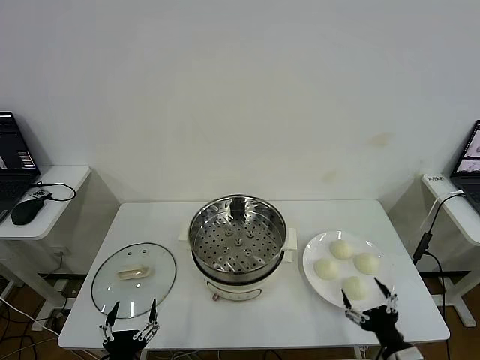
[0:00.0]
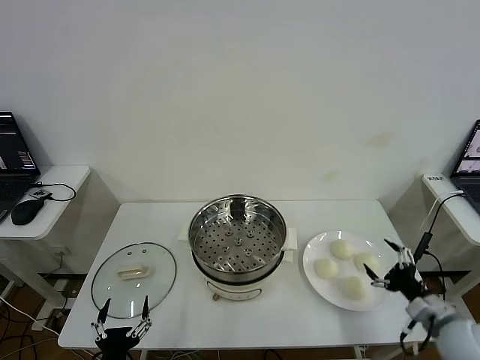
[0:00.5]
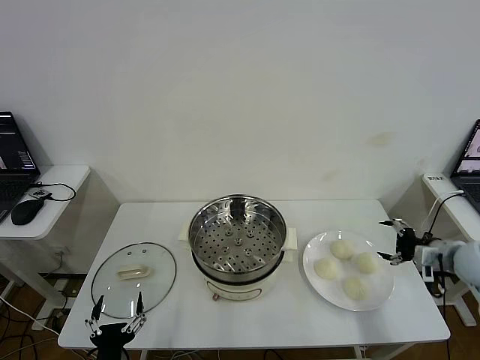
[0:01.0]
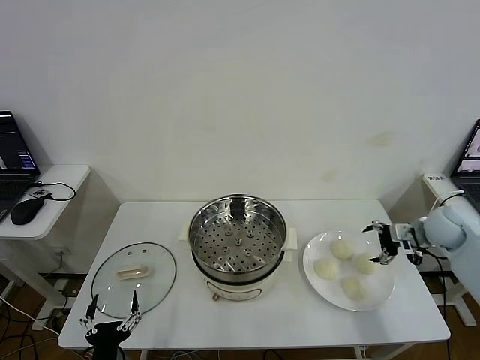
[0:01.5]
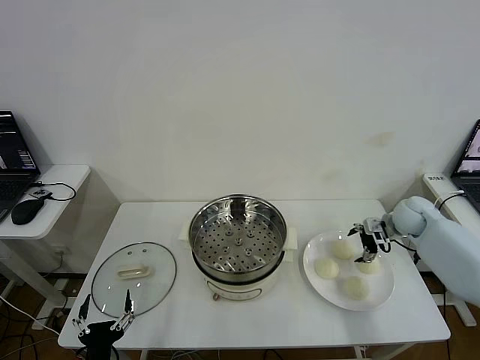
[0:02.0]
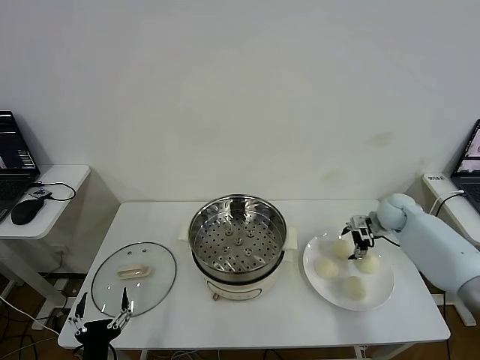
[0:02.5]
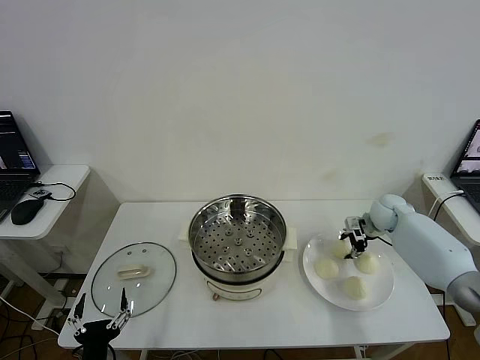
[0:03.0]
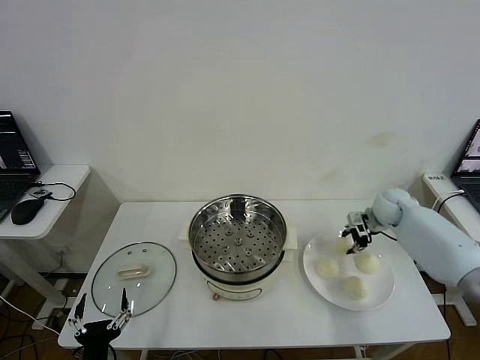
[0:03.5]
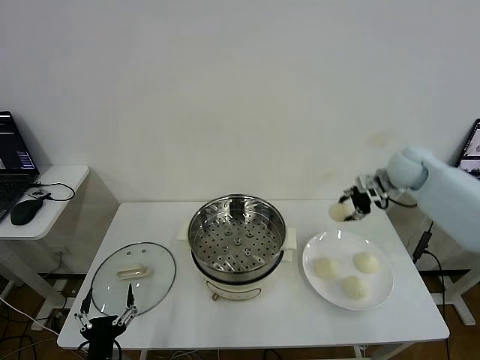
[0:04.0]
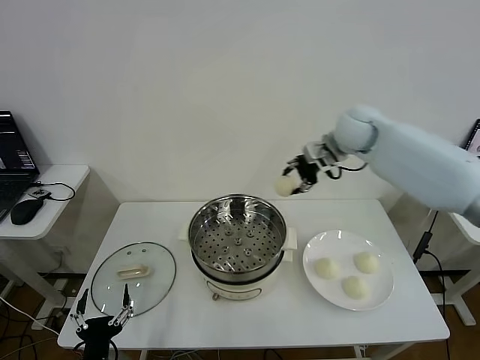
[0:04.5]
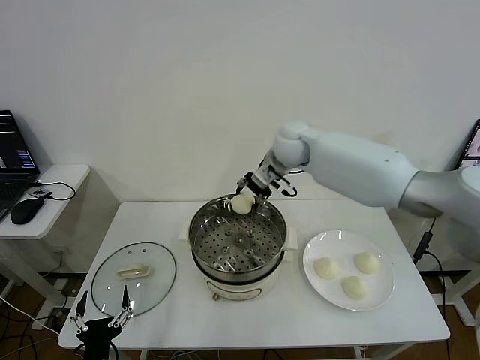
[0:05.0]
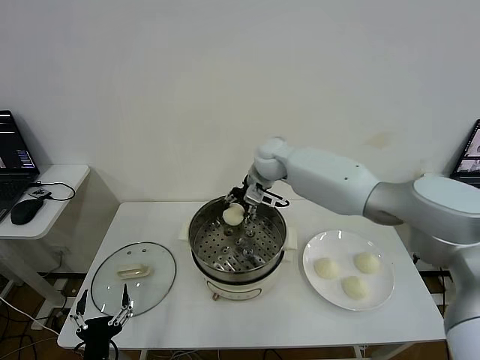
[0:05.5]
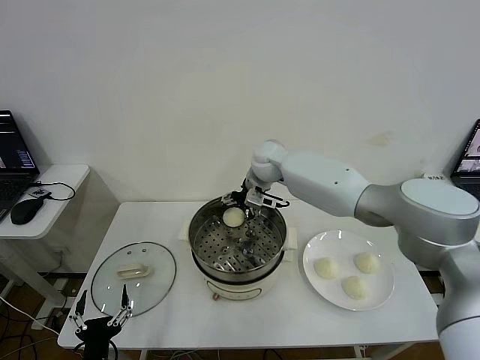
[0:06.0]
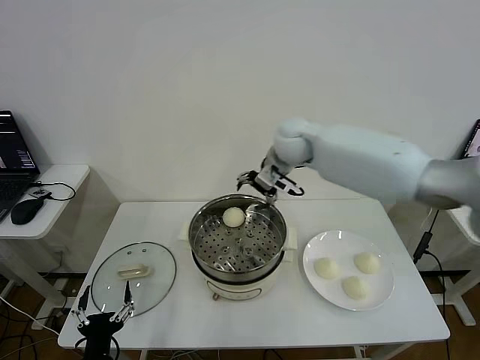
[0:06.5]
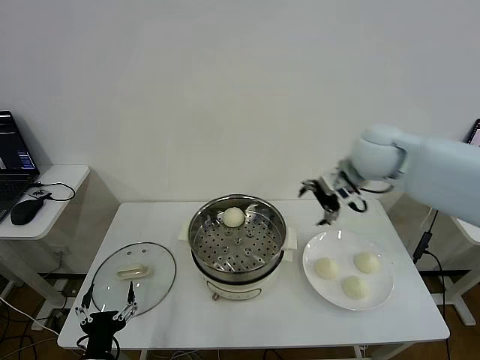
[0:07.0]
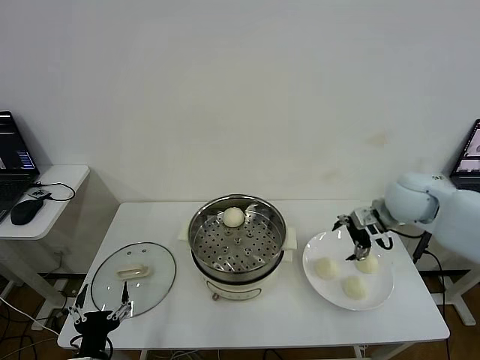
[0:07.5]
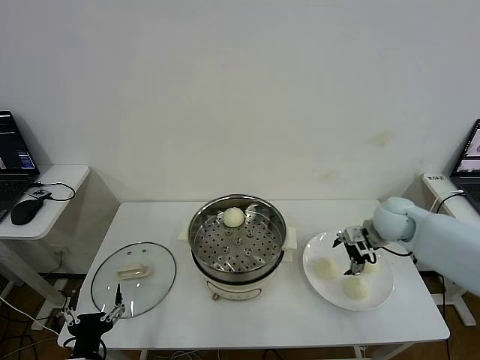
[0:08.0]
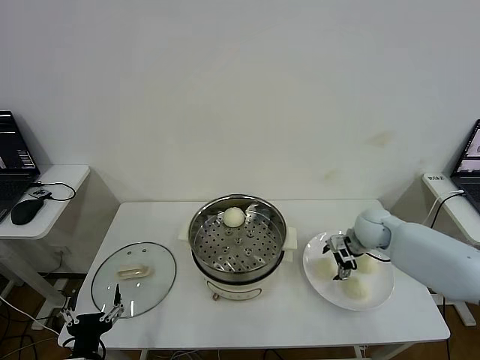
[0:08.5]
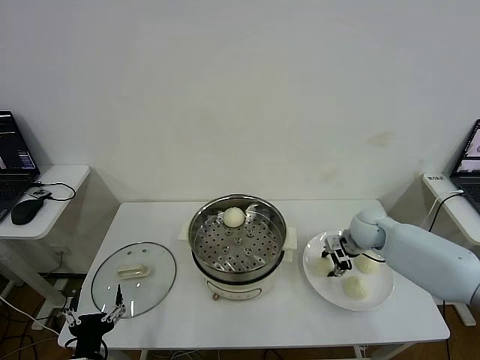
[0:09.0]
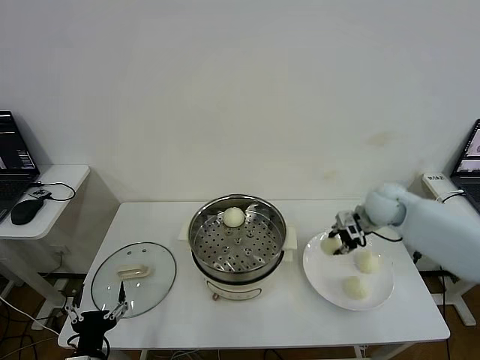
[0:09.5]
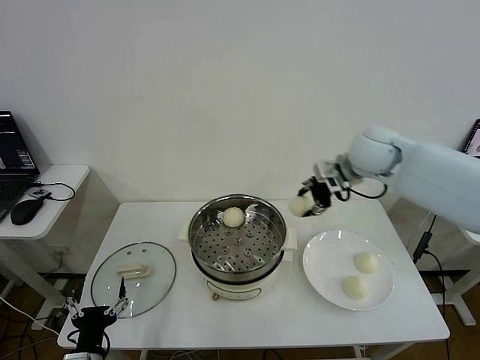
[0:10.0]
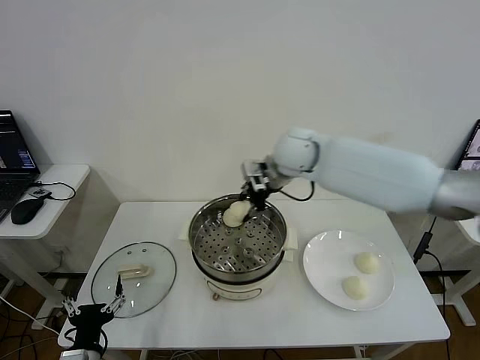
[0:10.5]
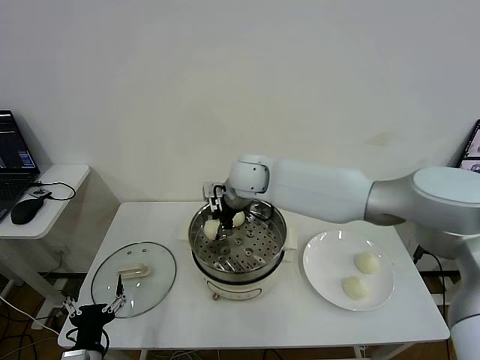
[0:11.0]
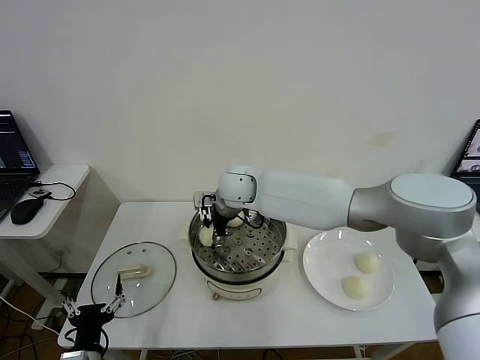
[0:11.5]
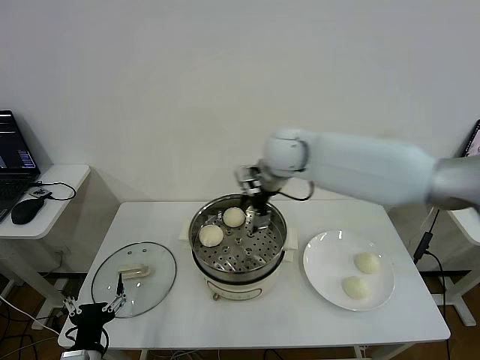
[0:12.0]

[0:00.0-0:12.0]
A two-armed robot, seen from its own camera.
Step, 0:00.0 to 0:02.5: Grasp the baozi in the plate with right gripper.
Step, 0:03.0 to 0:05.5: Place the baozi on the steamer with right gripper.
Step, 0:06.5 to 0:08.5: Grasp the baozi in the plate with right gripper.
Step, 0:09.0 to 0:11.5: Place the baozi on the steamer with right gripper.
0:02.0 to 0:04.0: The right gripper is displaced upward and to the left by approximately 20 cm, and closes up.
0:04.0 to 0:06.0: The right gripper shifts about 30 cm to the left, and opens its fingers.
0:06.0 to 0:08.0: The right gripper travels to the right and backward by some 30 cm.
0:08.0 to 0:10.0: The right gripper travels upward and to the left by about 25 cm, and closes up.
0:10.0 to 0:12.0: The right gripper travels to the left by about 10 cm, and opens up.

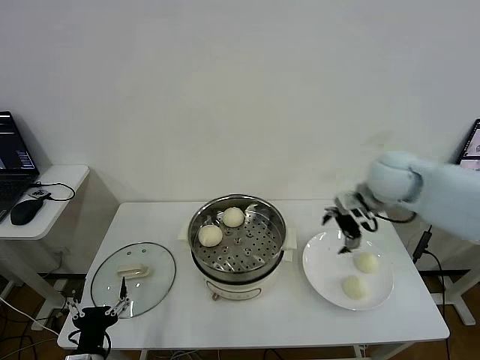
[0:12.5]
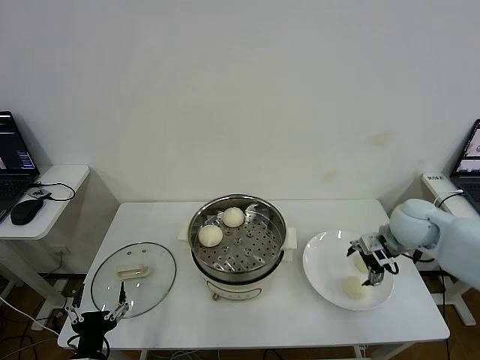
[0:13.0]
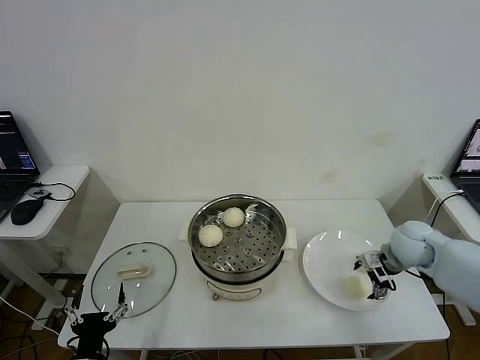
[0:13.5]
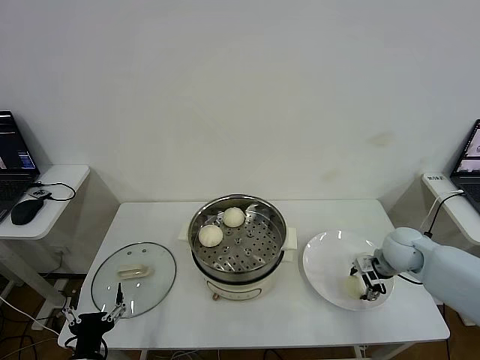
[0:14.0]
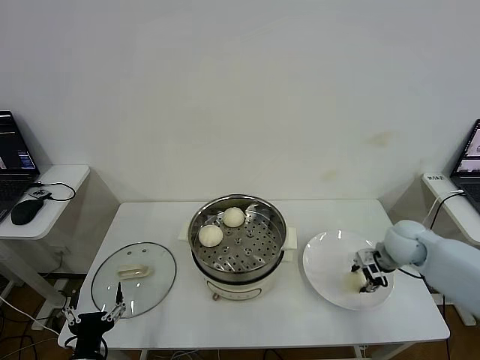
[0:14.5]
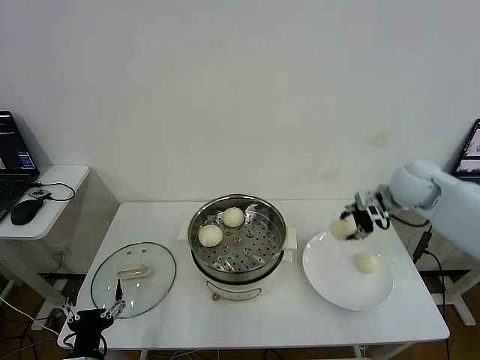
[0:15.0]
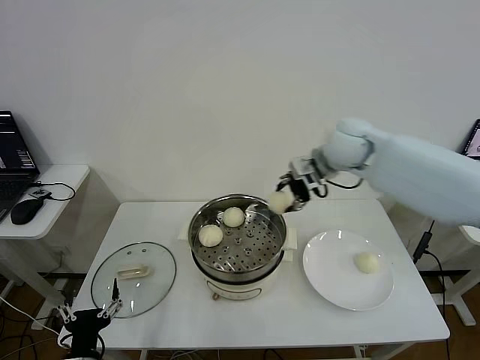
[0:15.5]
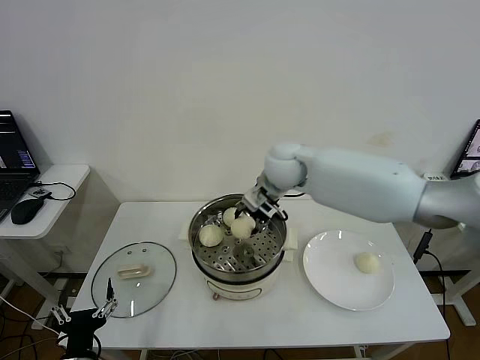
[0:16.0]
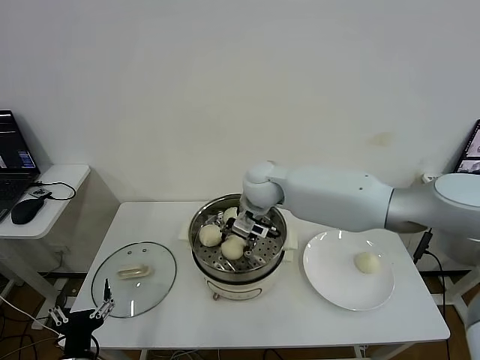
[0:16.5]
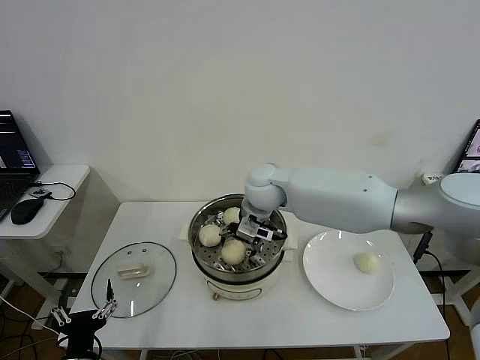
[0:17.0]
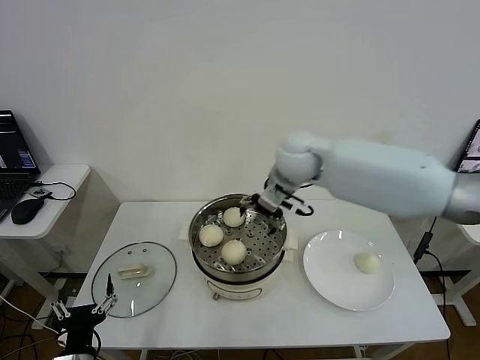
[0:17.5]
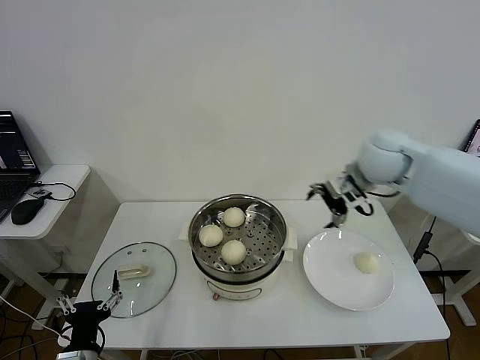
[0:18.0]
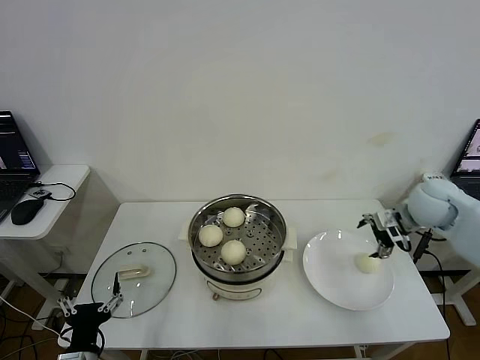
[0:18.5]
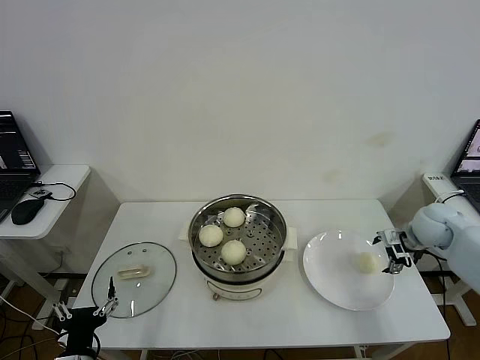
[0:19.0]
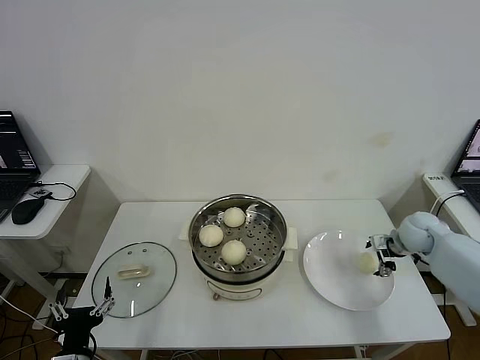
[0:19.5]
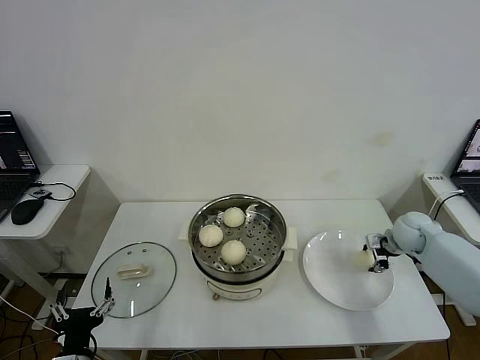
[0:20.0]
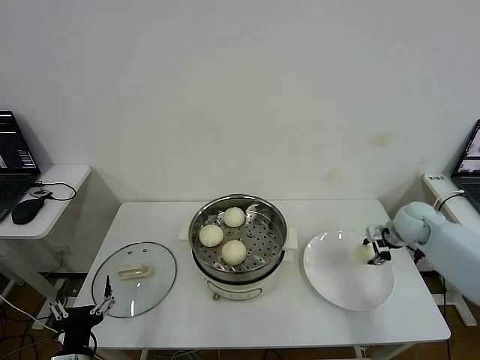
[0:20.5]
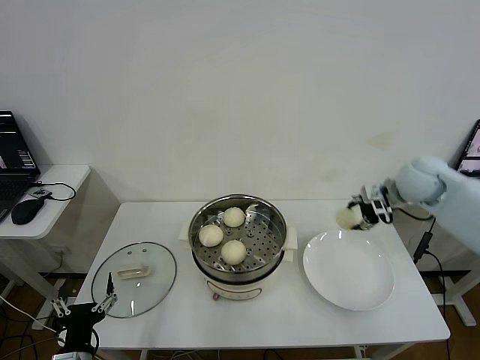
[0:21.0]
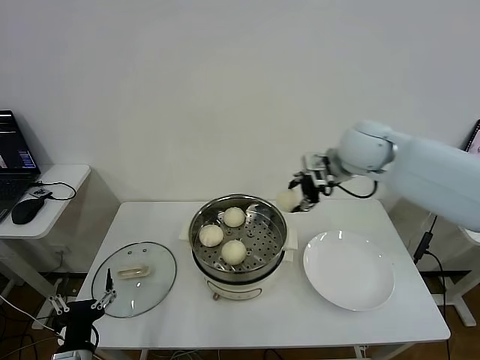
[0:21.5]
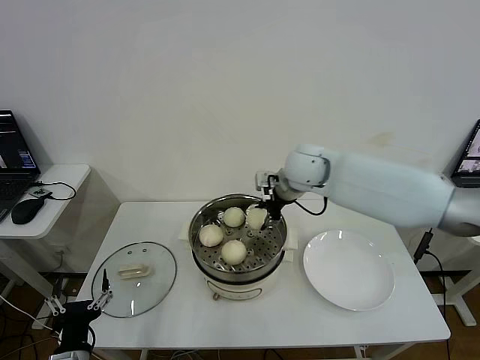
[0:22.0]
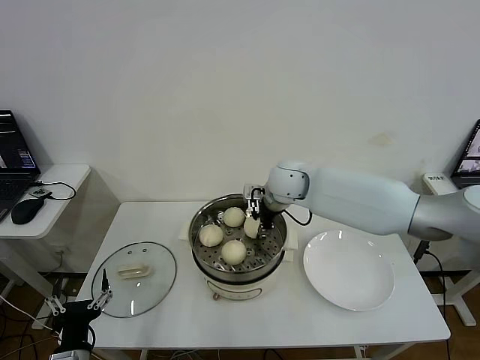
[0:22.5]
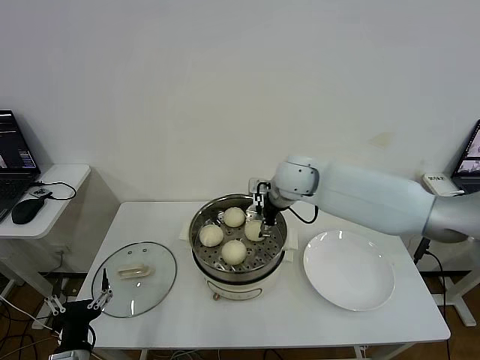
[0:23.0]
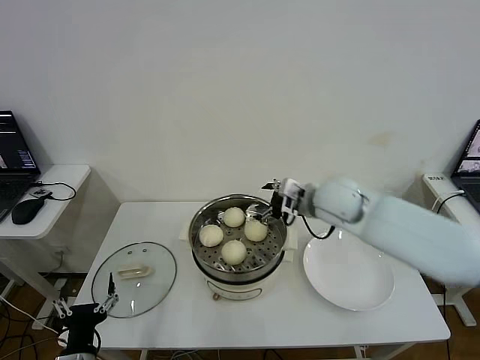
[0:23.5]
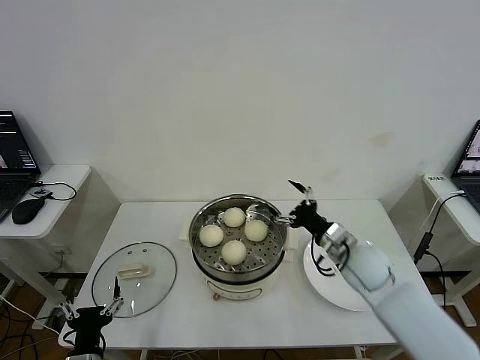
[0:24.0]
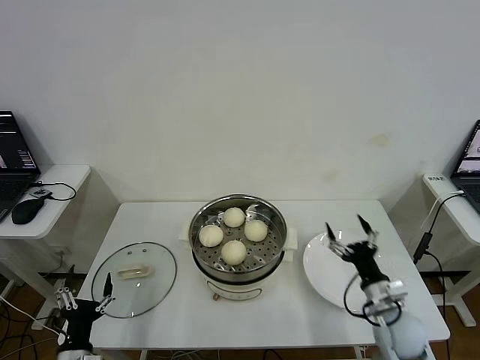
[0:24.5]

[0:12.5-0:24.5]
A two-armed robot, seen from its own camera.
Step, 0:12.5 to 0:14.5: Grasp the baozi in the plate with right gripper.
Step, 0:15.0 to 0:17.0: Place the baozi on the steamer with right gripper.
Step, 0:17.5 to 0:20.0: Grasp the baozi in the plate with right gripper.
Step, 0:20.5 to 0:23.0: Place the baozi on the steamer with right gripper.
0:12.5 to 0:14.5: The right gripper travels downward and to the right by approximately 15 cm, and closes.
0:14.5 to 0:16.5: The right gripper heads to the left, covering approximately 35 cm.
0:16.5 to 0:18.5: The right gripper heads to the right, covering some 35 cm, and opens.
0:18.5 to 0:20.5: The right gripper is displaced downward by some 10 cm, and closes up.
0:20.5 to 0:22.5: The right gripper is displaced to the left by some 30 cm.
0:22.5 to 0:24.5: The right gripper moves backward, to the right and downward, about 40 cm, and opens up.

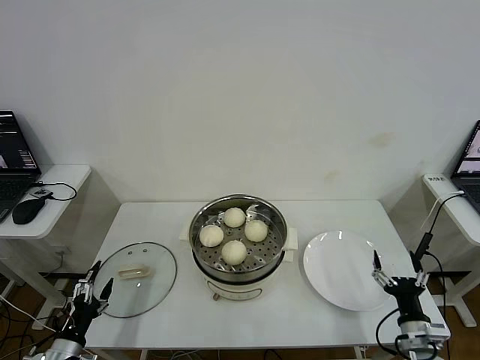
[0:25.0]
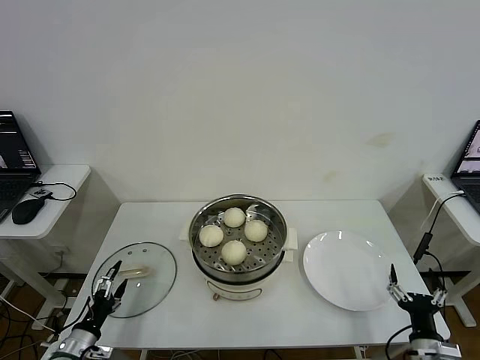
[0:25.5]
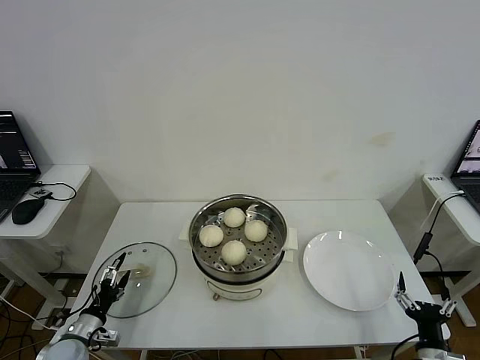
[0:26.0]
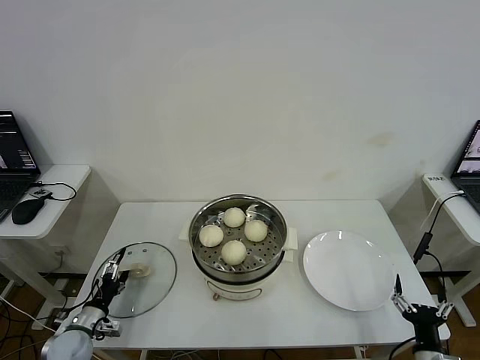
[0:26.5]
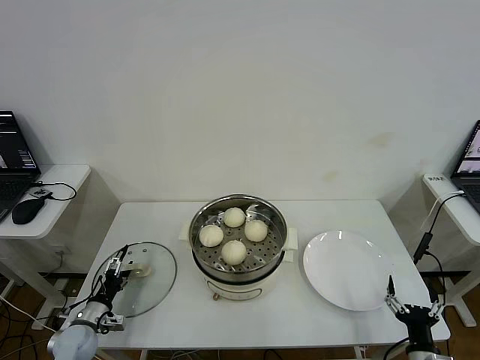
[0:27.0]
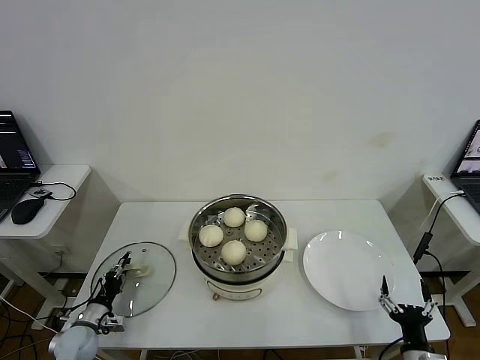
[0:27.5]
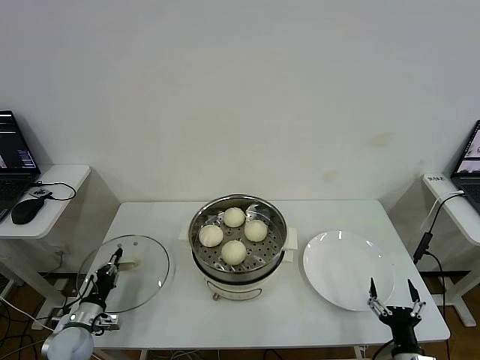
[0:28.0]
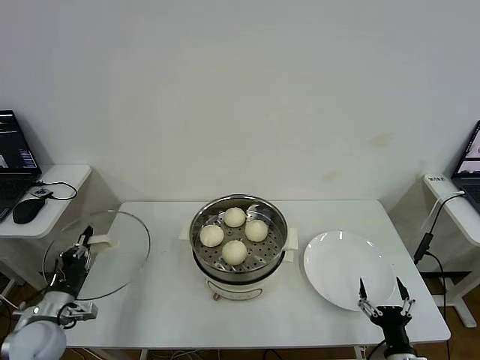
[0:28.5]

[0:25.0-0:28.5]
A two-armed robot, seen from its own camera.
Step, 0:25.0 to 0:27.5: Grasp the pot lid with left gripper.
0:25.0 to 0:27.0: The right gripper shifts some 5 cm backward. The left gripper heads forward and downward, covering roughly 15 cm.
0:27.0 to 0:28.5: The left gripper goes roughly 10 cm upward, and closes.
